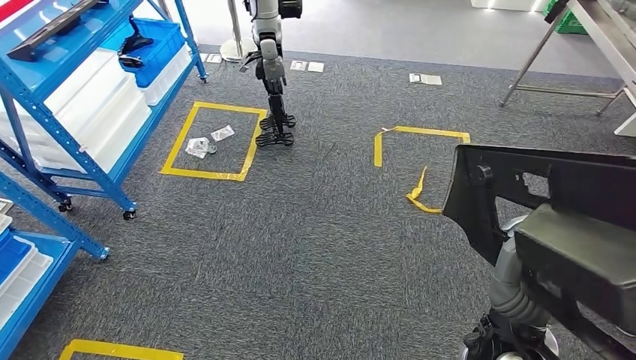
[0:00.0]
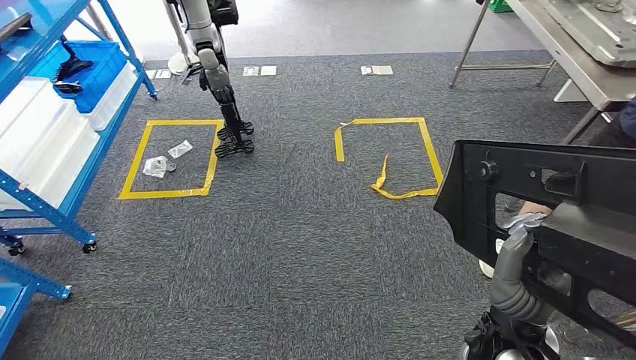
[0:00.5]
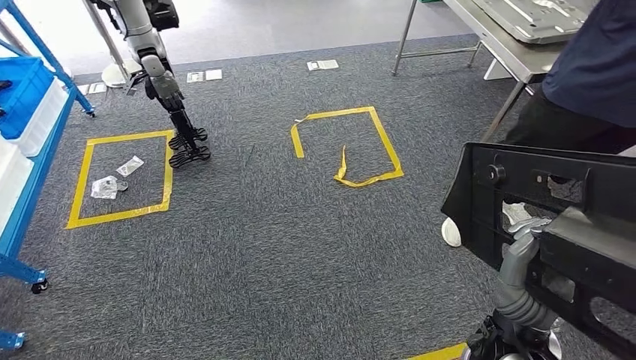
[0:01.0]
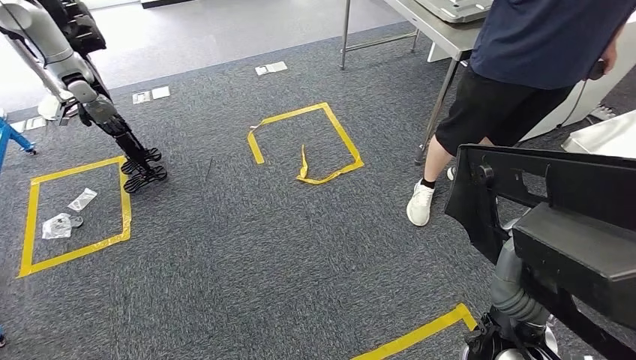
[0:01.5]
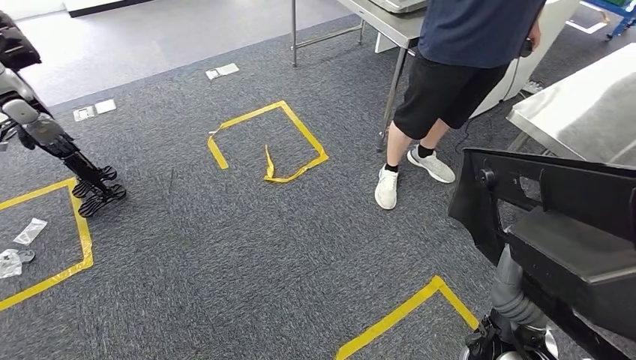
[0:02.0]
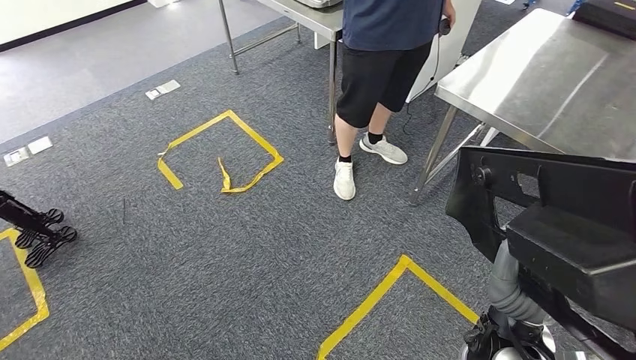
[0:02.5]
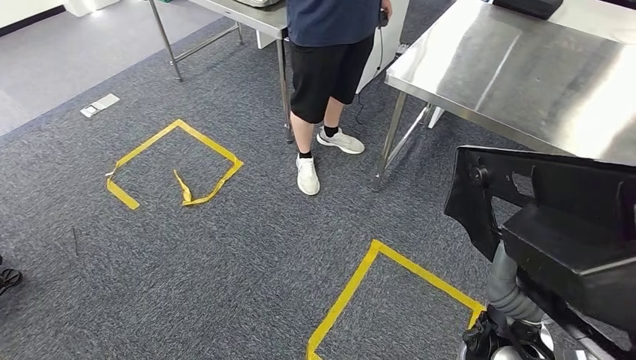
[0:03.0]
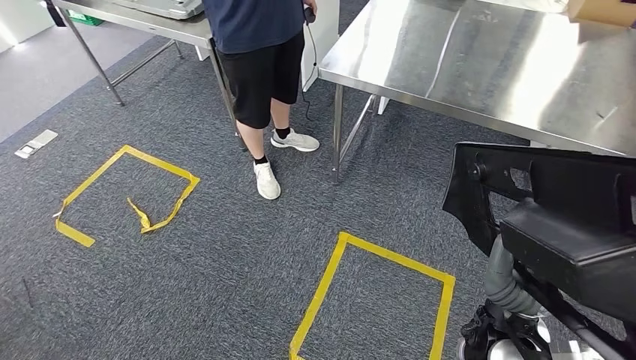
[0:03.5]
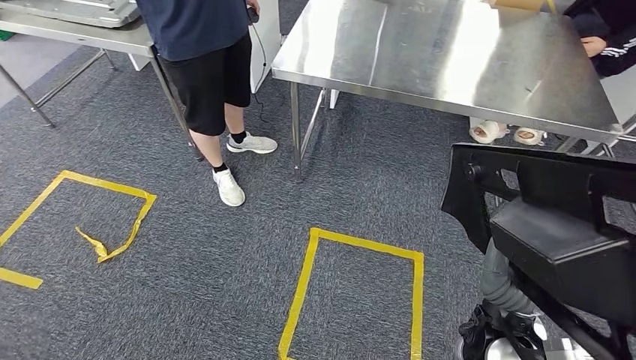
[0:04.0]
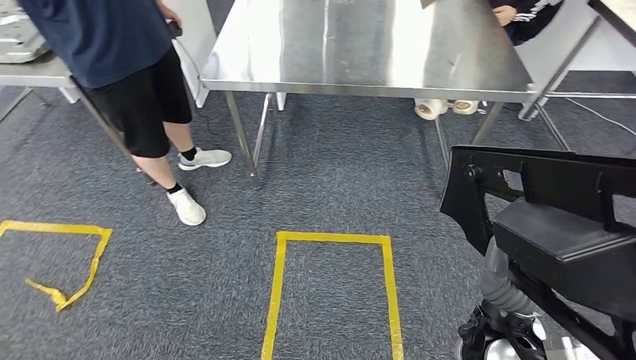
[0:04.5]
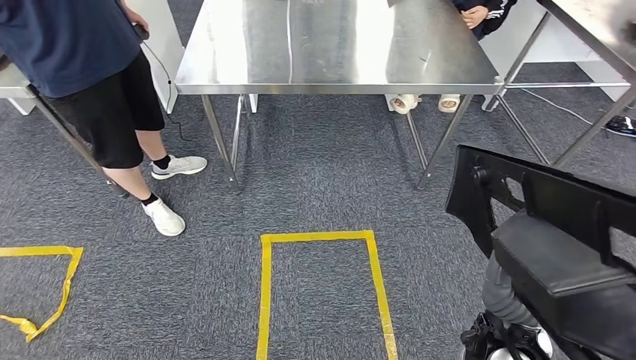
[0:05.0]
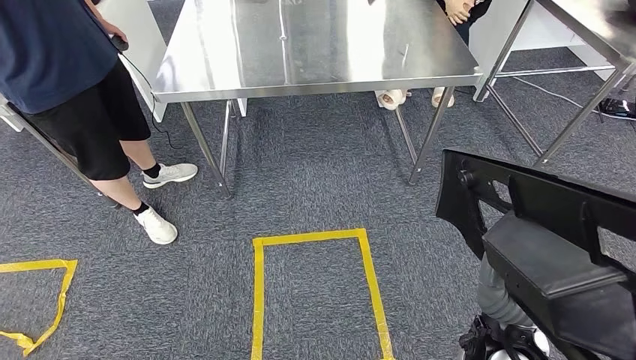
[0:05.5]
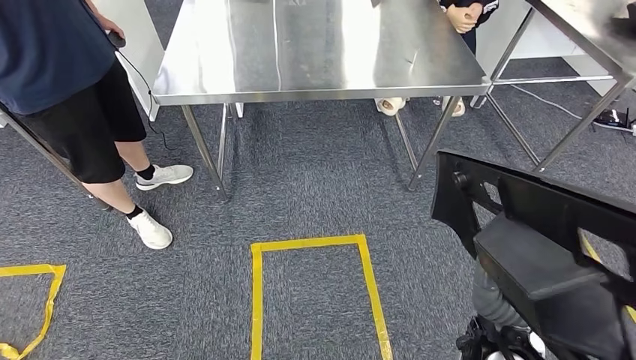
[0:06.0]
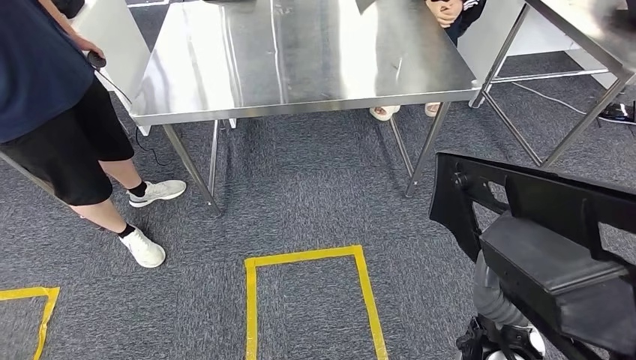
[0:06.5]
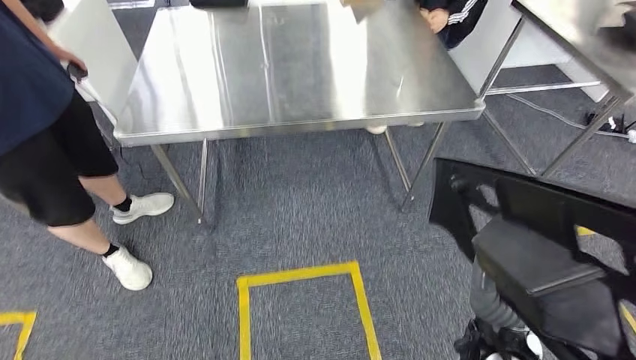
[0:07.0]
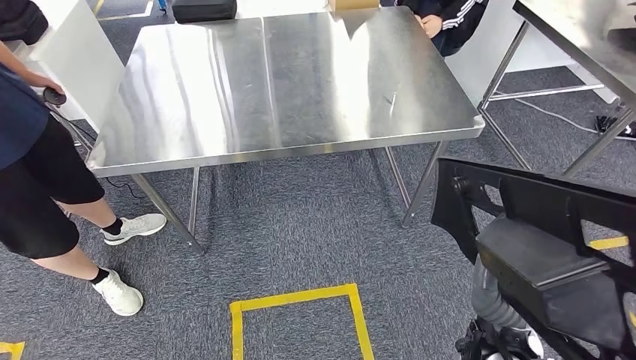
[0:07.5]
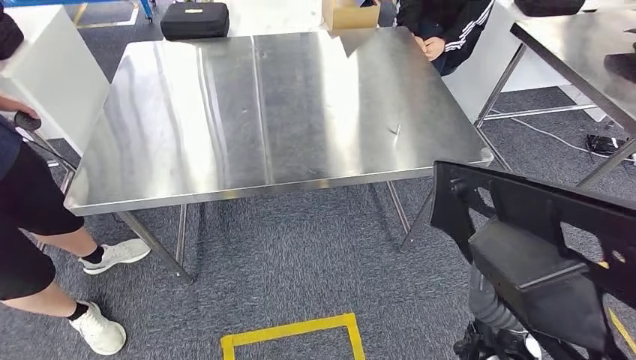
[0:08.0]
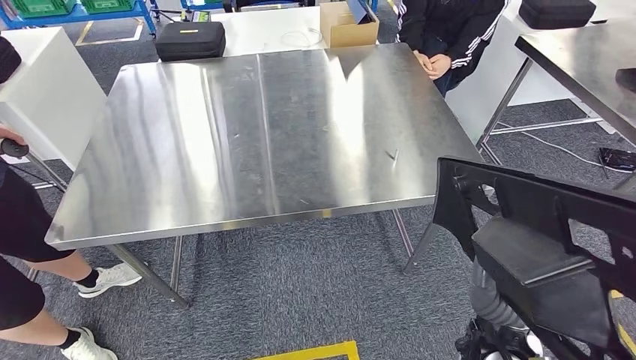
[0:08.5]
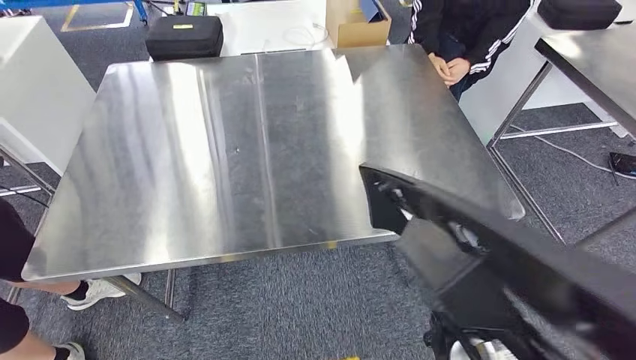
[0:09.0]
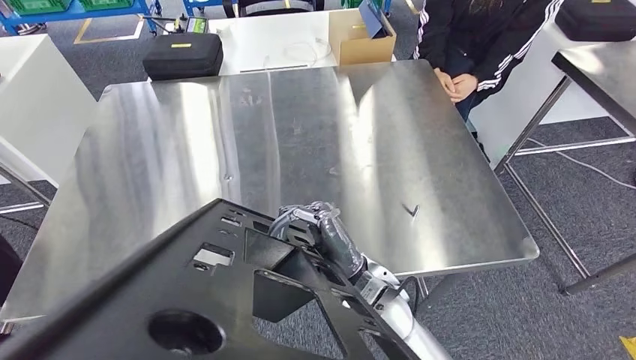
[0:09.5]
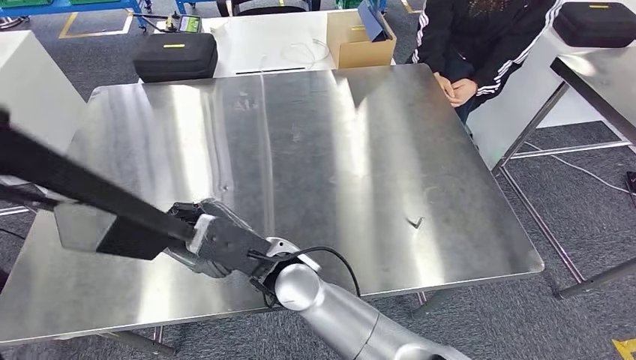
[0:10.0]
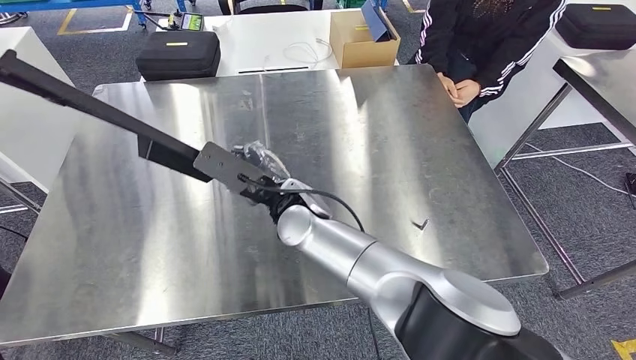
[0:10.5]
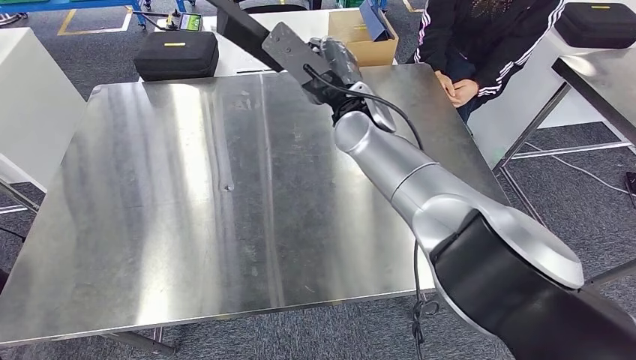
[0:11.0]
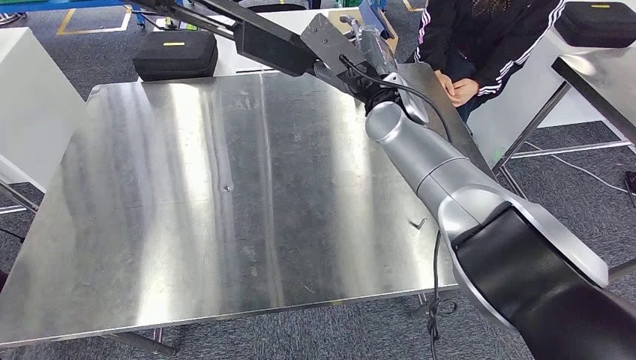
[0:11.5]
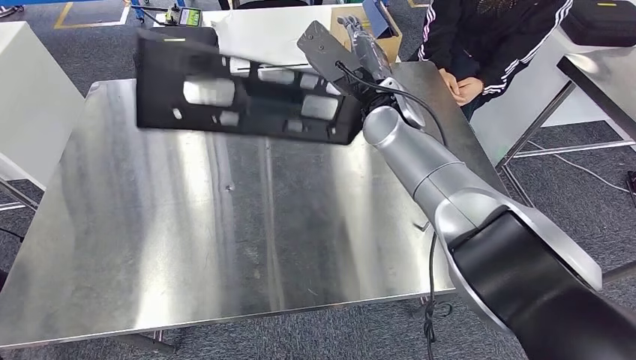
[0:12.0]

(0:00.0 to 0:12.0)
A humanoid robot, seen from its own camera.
Step, 0:00.0 - 0:08.0: Move the large material to the workbench.

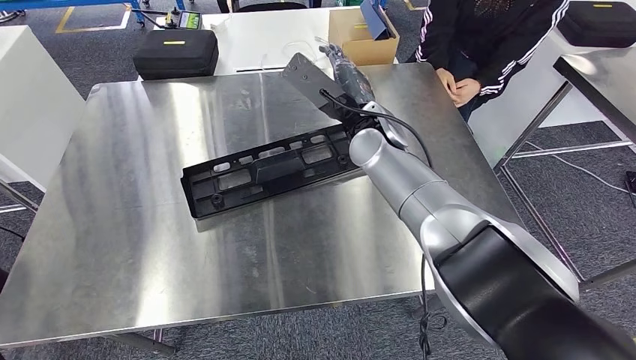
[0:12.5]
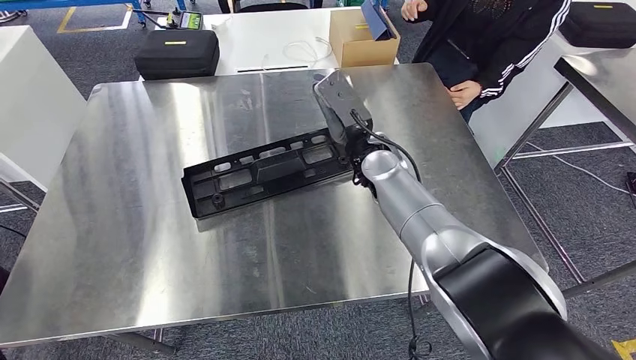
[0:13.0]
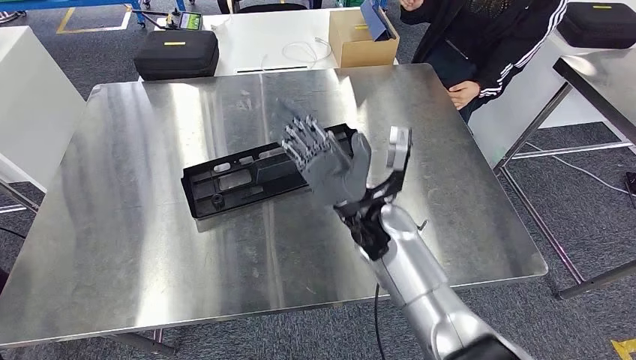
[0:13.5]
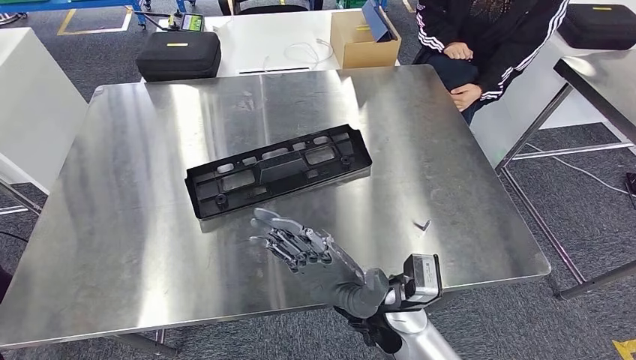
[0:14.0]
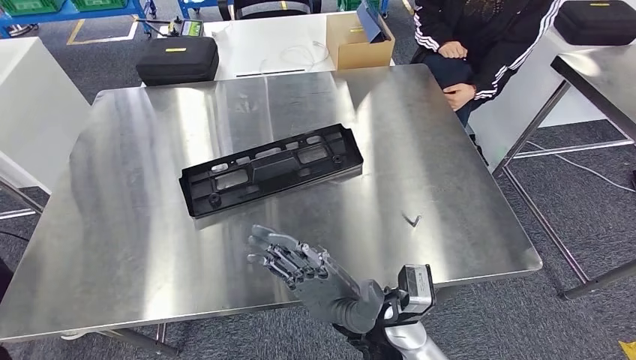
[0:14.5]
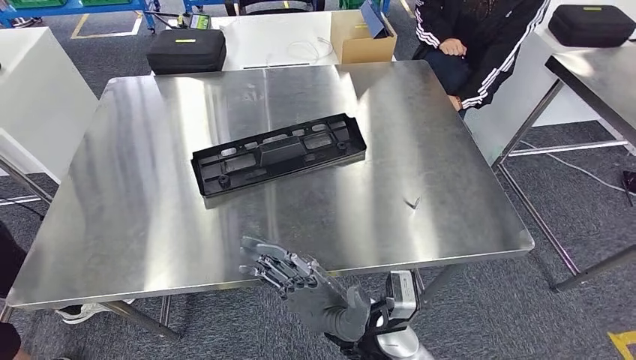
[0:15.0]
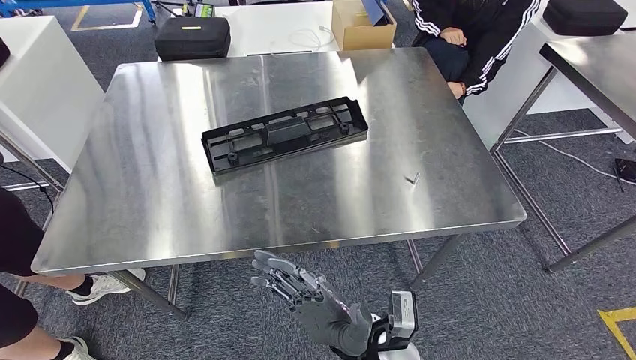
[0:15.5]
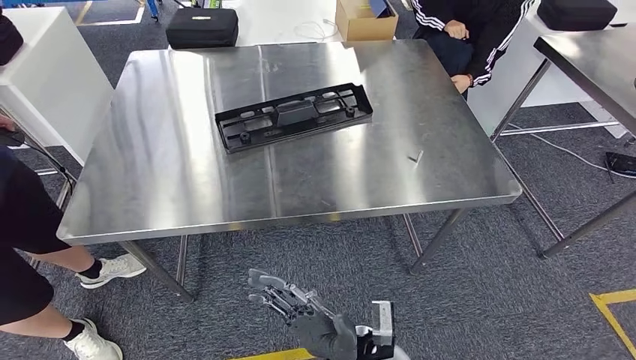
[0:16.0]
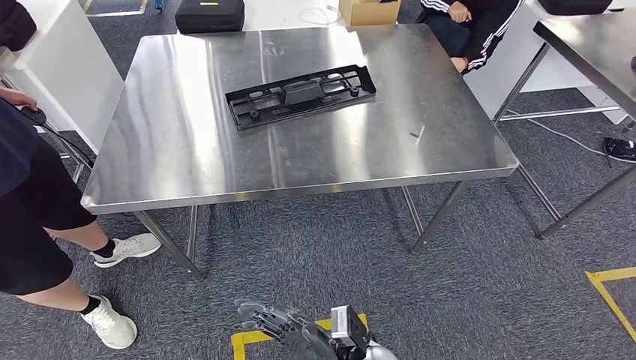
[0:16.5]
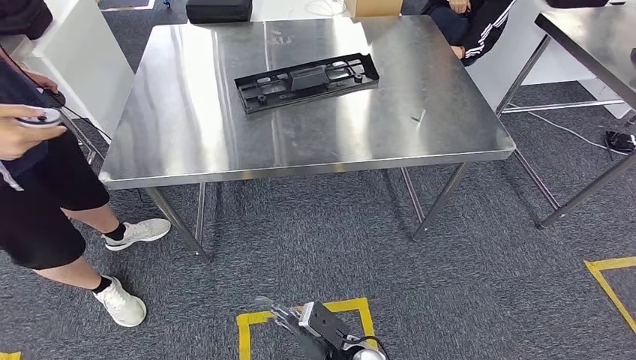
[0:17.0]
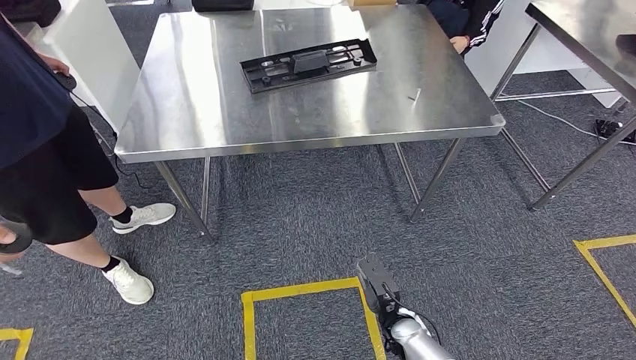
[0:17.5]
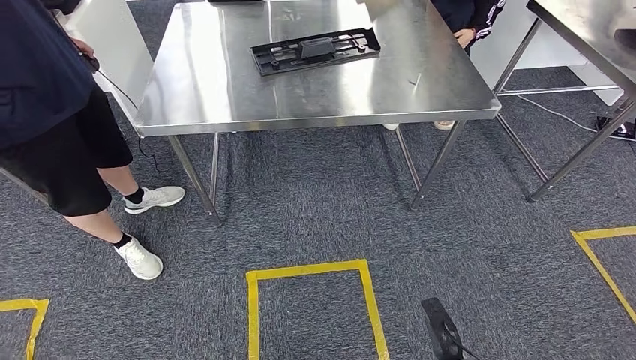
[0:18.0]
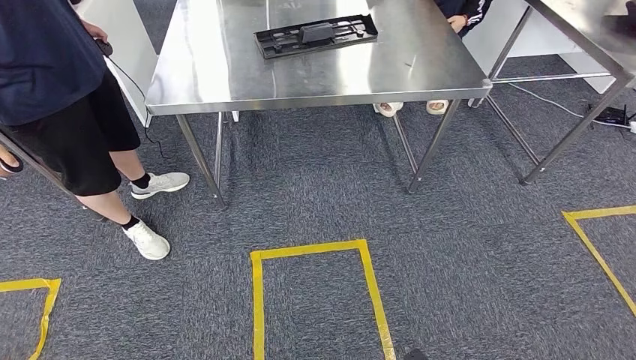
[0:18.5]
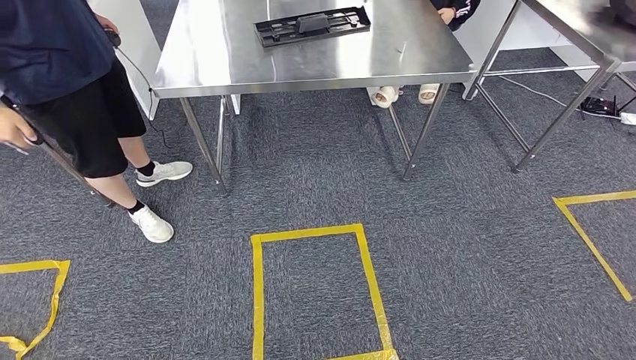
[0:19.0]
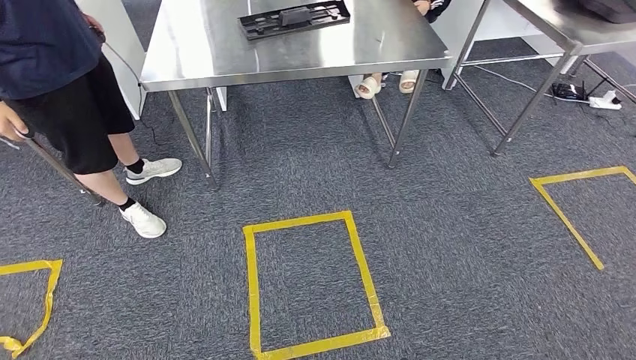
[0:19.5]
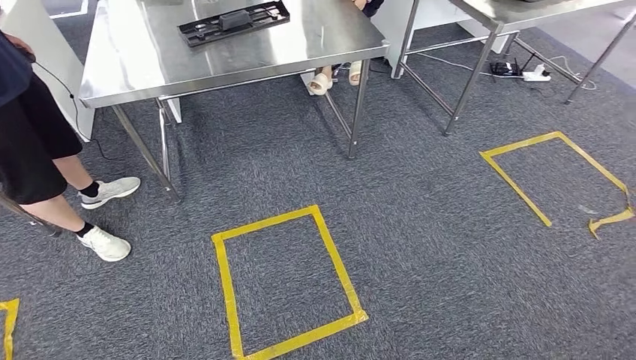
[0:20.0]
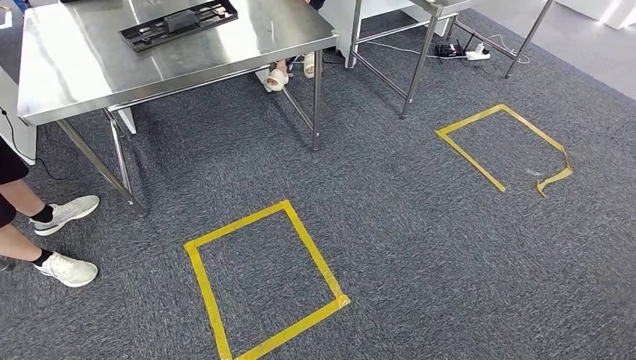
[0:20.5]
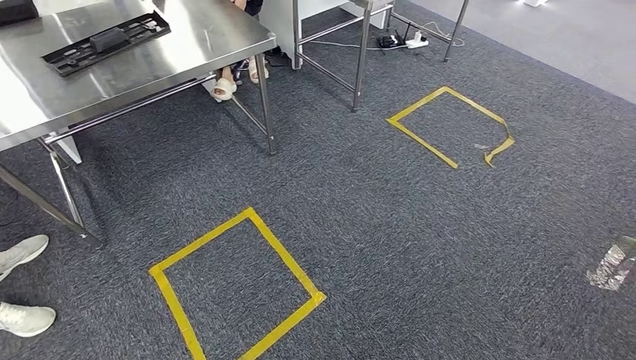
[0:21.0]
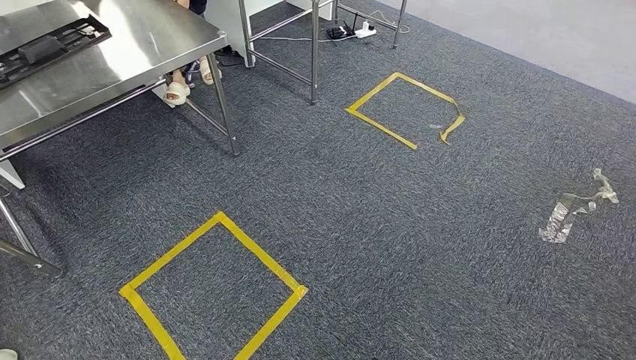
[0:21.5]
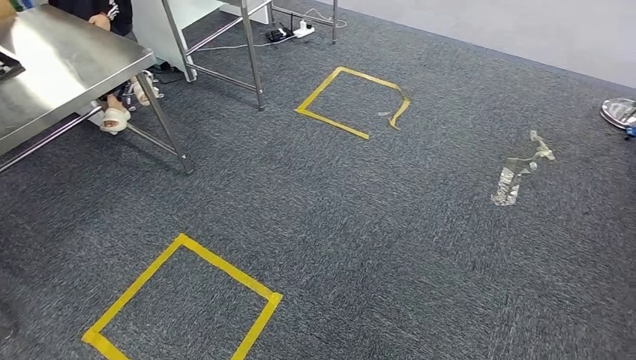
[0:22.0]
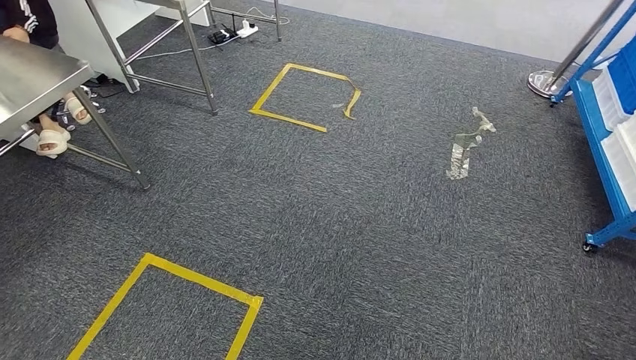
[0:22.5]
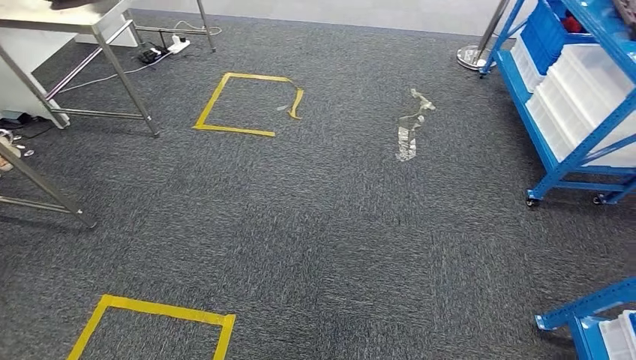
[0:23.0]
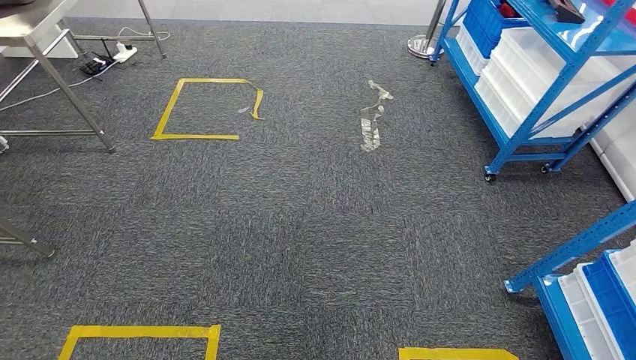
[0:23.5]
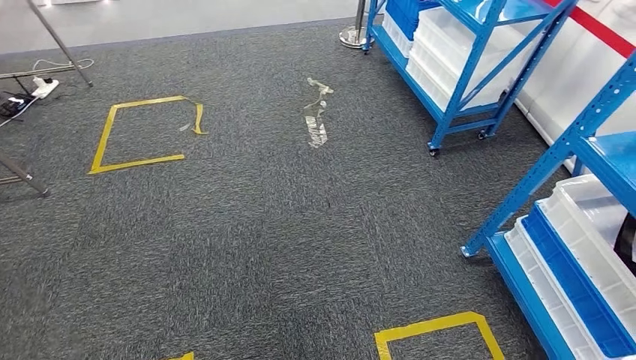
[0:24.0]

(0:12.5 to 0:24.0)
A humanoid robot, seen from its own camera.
Step, 0:12.5 - 0:18.0: Insert the large material into the corresponding slot on the workbench.
